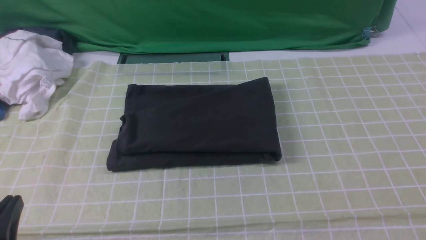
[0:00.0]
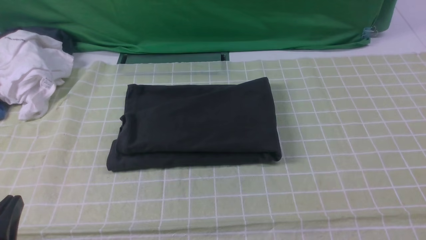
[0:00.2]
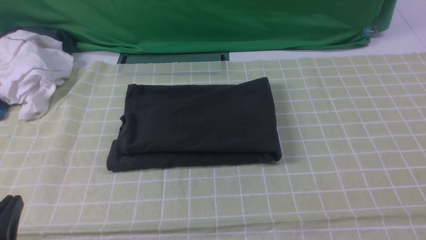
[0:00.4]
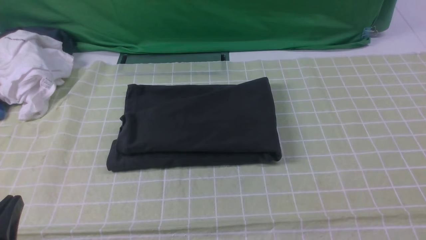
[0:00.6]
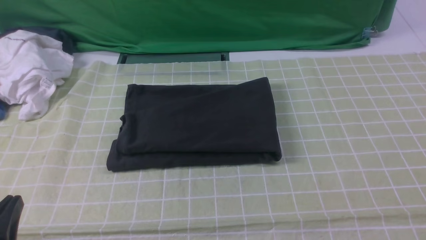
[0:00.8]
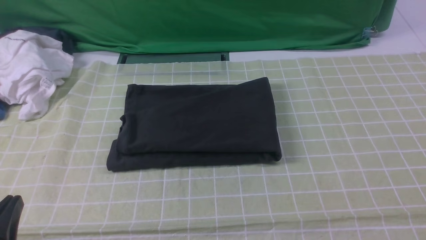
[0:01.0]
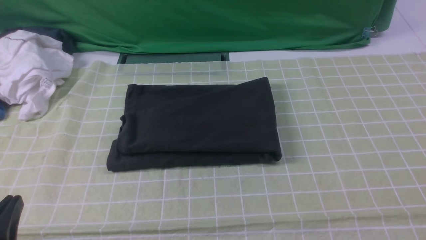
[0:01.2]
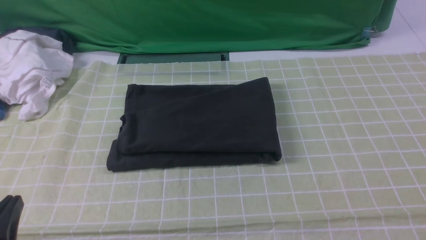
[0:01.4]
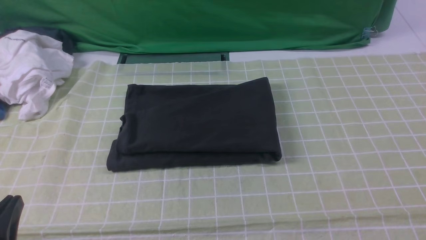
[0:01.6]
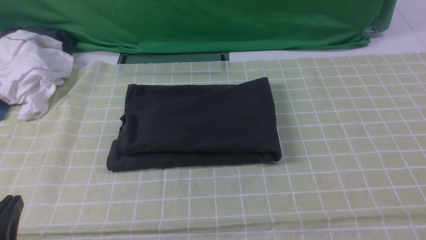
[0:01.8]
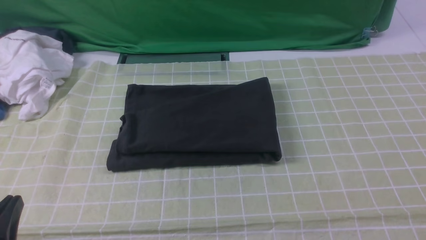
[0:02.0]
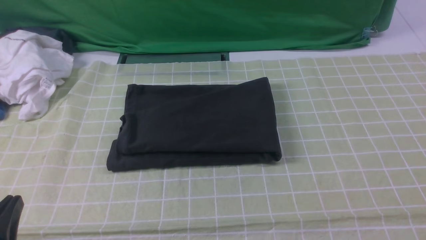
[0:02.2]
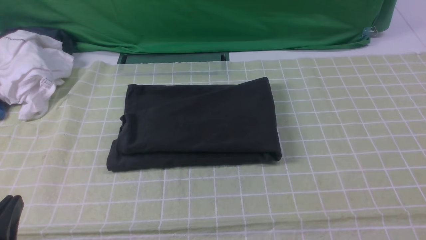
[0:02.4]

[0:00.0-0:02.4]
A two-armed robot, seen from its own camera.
0:00.0 to 0:02.4: The two grippers keep their place.

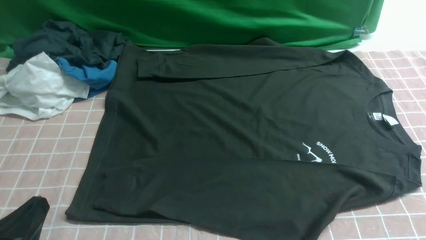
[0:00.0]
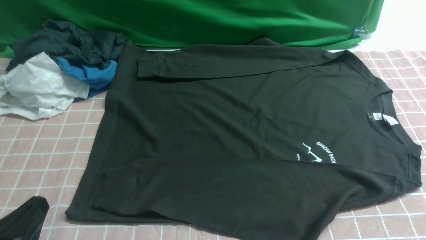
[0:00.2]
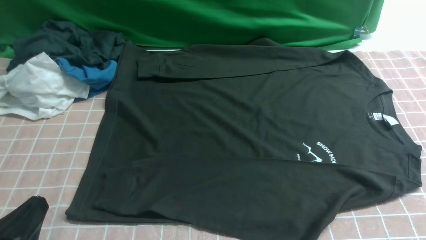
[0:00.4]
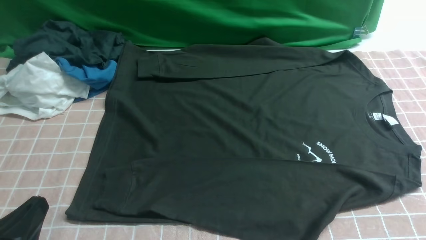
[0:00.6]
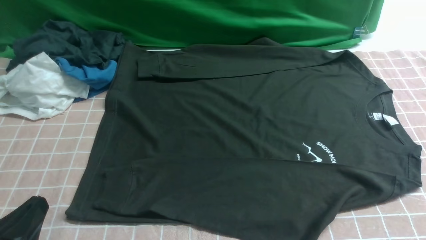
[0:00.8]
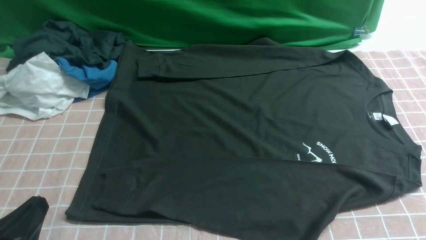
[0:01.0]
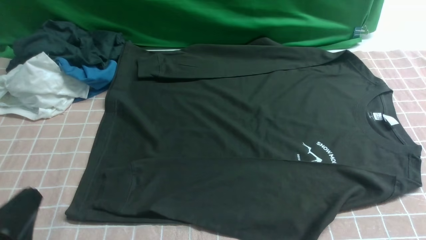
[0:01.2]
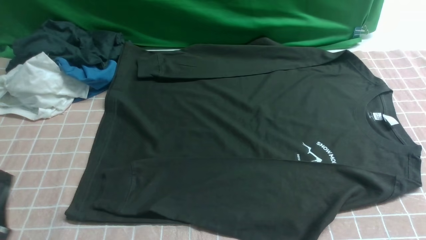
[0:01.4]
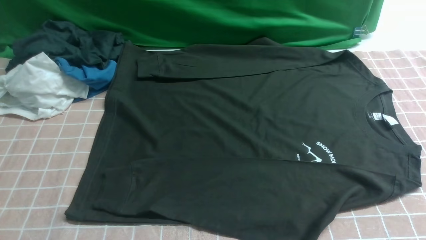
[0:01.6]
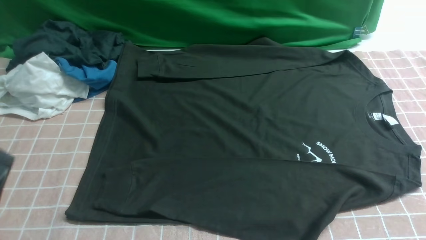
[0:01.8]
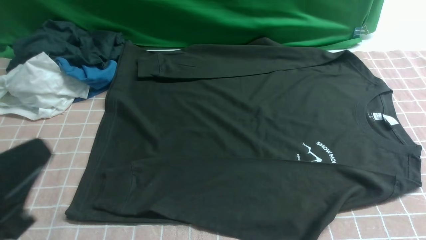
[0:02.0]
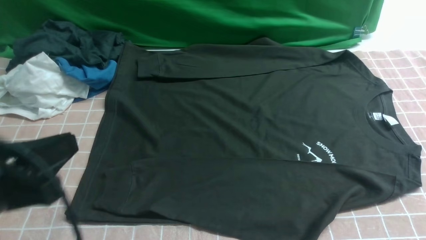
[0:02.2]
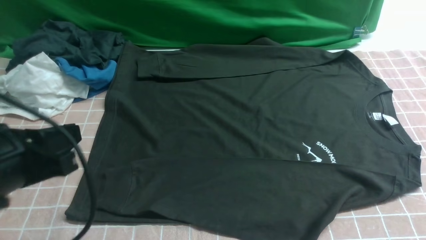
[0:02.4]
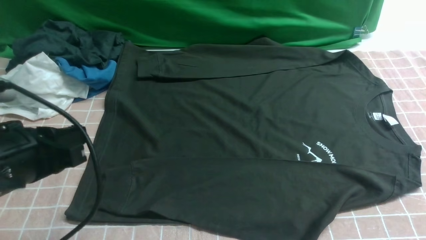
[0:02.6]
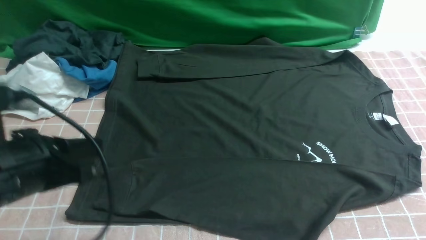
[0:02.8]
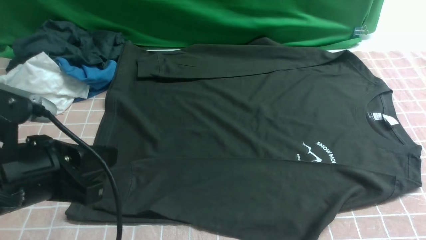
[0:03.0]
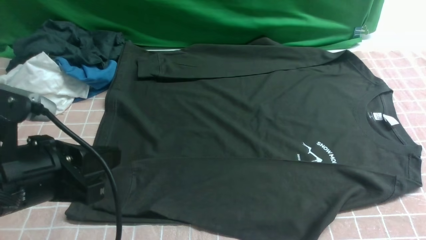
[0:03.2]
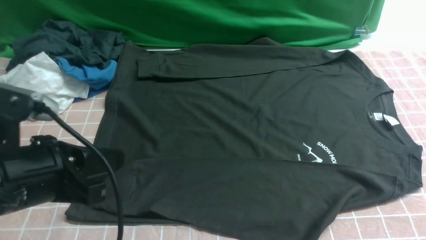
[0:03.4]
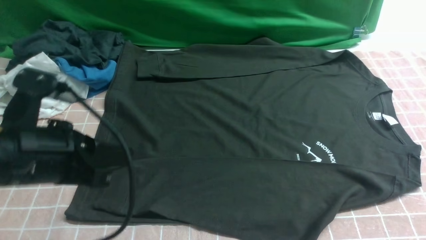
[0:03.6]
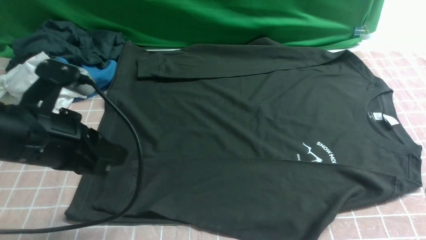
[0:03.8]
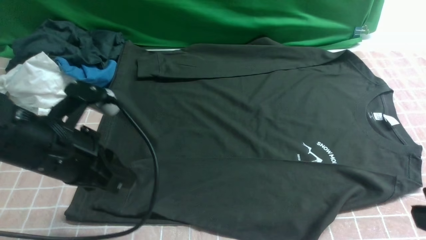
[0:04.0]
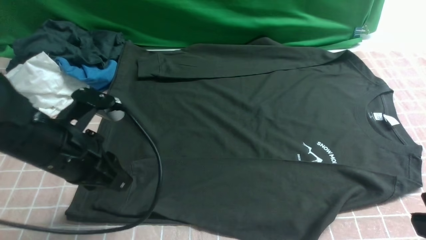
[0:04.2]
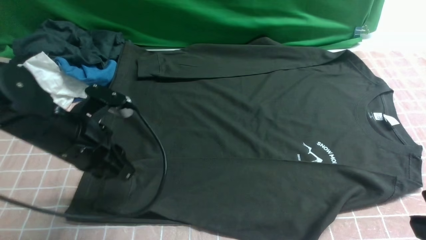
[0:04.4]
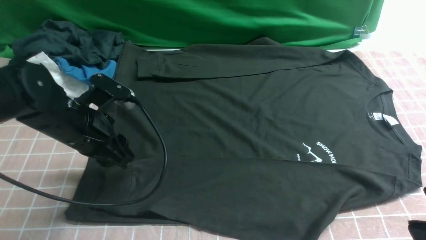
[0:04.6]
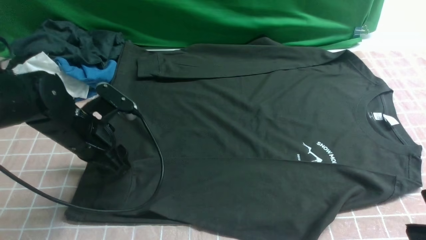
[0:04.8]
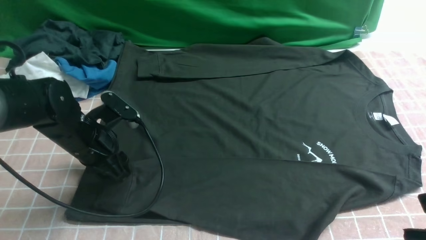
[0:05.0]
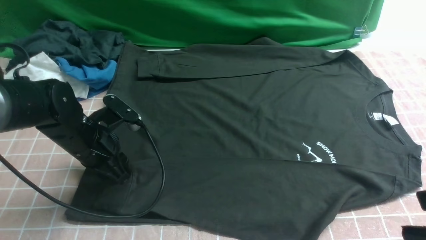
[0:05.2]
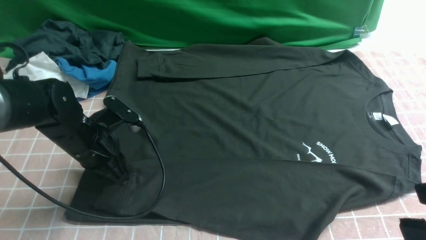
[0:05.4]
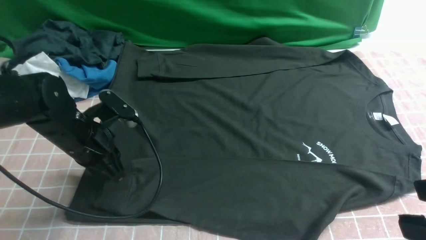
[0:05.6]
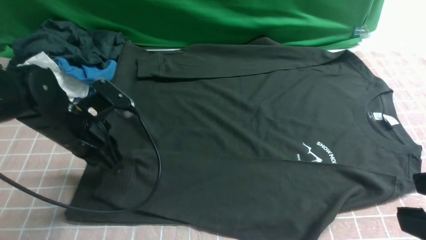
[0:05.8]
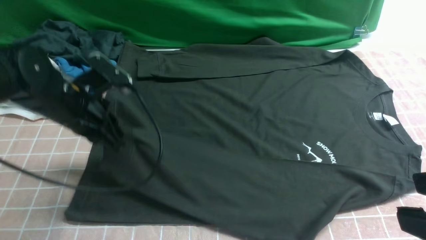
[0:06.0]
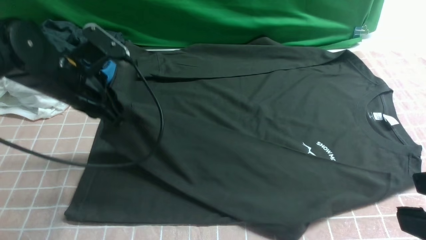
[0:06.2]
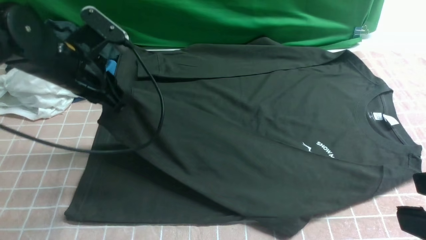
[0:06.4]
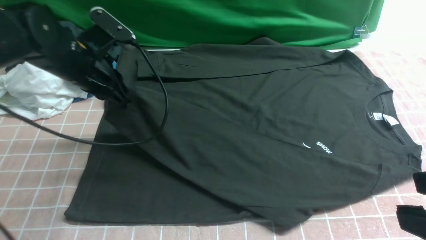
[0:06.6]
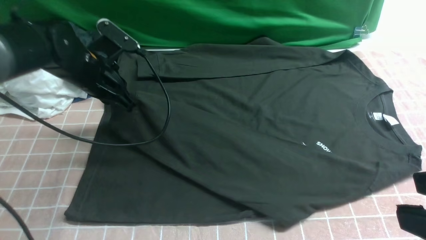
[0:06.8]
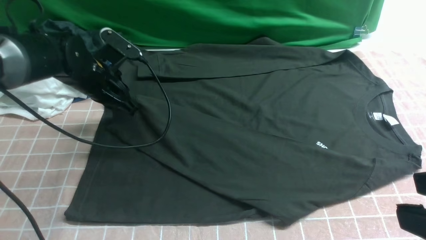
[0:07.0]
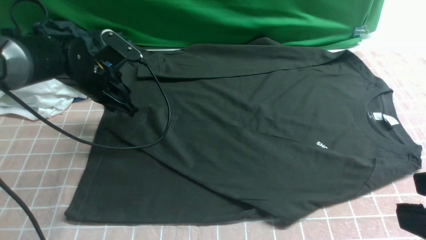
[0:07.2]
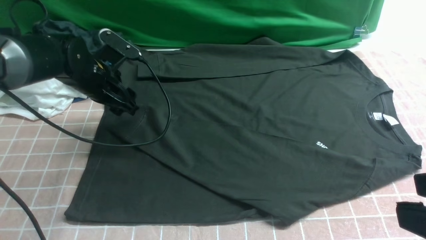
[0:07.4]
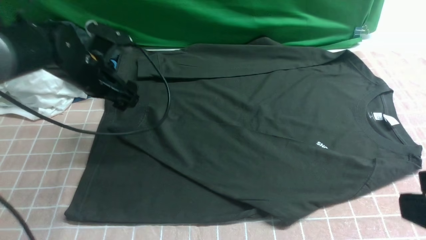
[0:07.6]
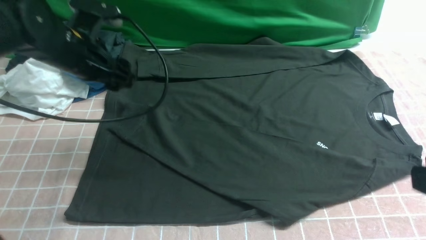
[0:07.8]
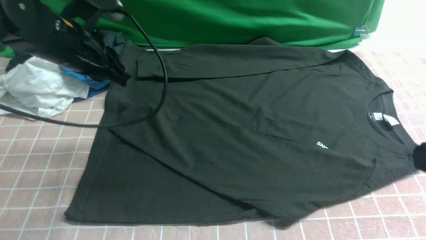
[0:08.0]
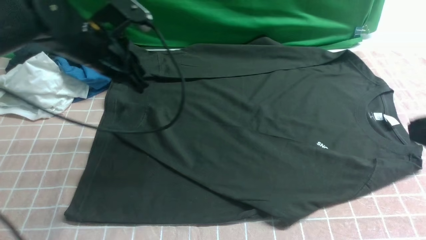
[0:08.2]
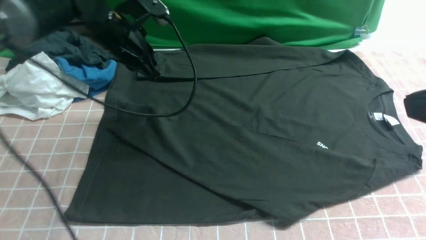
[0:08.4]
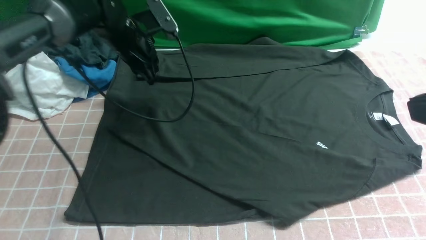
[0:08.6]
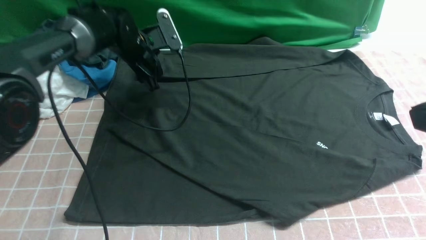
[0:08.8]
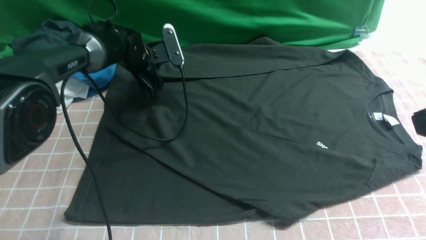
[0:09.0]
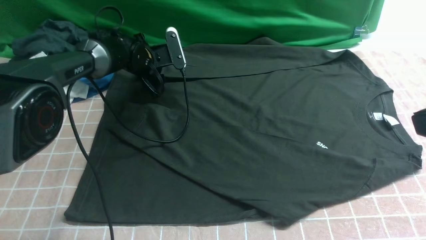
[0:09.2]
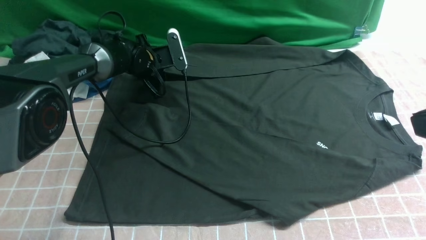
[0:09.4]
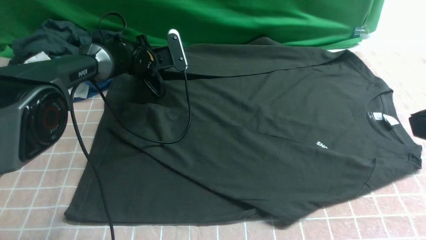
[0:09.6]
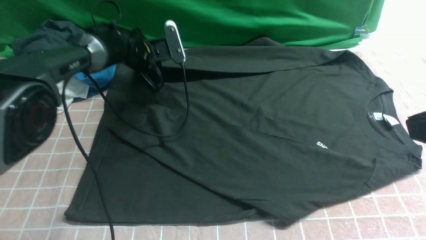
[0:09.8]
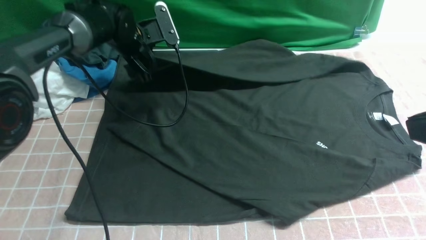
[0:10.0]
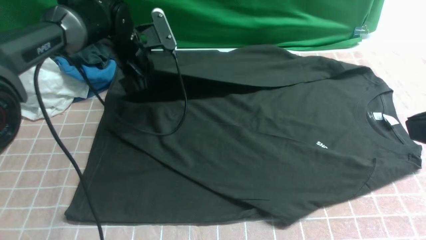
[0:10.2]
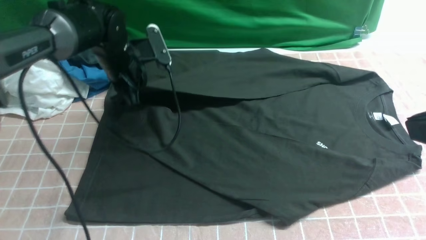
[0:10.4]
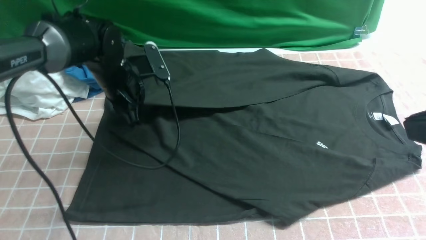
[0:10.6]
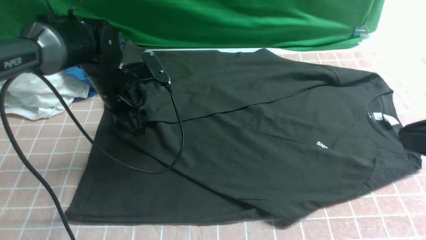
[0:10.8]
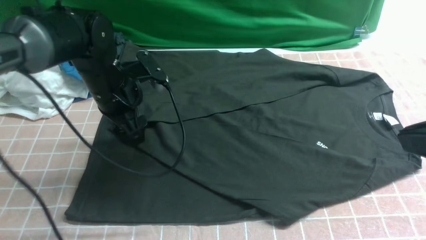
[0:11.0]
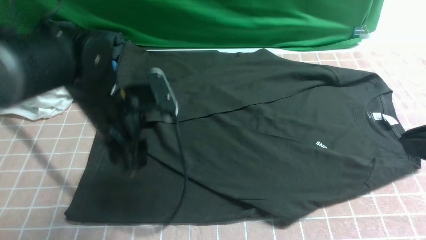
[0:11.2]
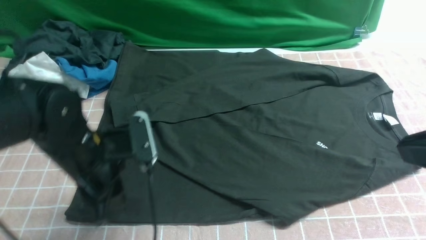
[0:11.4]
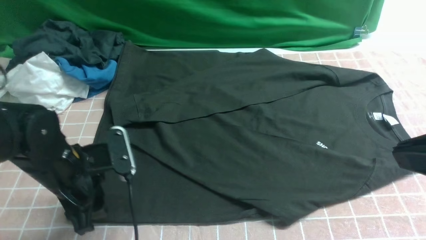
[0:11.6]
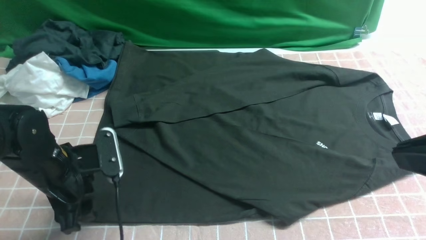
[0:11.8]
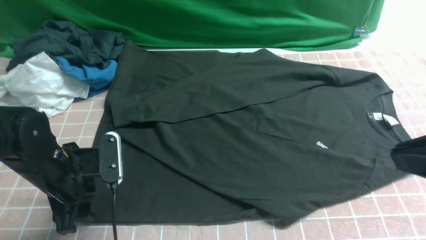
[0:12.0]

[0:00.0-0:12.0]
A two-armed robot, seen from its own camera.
Step, 0:00.0 to 0:05.8: use the left arm to clamp the cuff closest to it.
Step, 0:06.0 to 0:07.4: use the left arm to drag and place the cuff at the centered position on the left edge of the fabric.
Step, 0:07.8 to 0:09.6: use the left arm to clamp the cuff farthest from it.
Step, 0:10.0 to 0:11.0: use the left arm to drag and drop the cuff onto the cuff closest to the left arm.
0:00.0 to 0:01.6: The left gripper is displaced upward by some 5 cm.
0:01.6 to 0:03.0: The left gripper heads forward, covering some 10 cm.
0:03.0 to 0:04.4: The left gripper shifts roughly 15 cm forward and downward, while the right gripper is displaced upward and to the left by some 15 cm.
0:04.4 to 0:06.0: The left gripper changes place by roughly 5 cm, and opens and closes again.
0:06.0 to 0:07.6: The left gripper goes approximately 5 cm forward, and opens its fingers.
0:07.6 to 0:09.0: The left gripper travels forward and downward by about 15 cm, and closes, then reopens. The right gripper shifts by roughly 5 cm, and closes its fingers.
0:09.0 to 0:10.4: The left gripper travels backward by roughly 5 cm, and closes its fingers.
0:10.4 to 0:12.0: The left gripper goes some 20 cm backward, and opens.

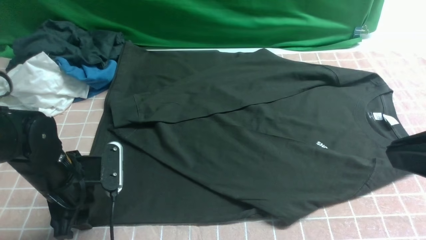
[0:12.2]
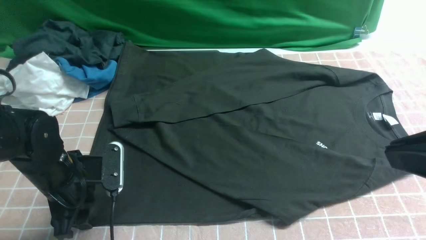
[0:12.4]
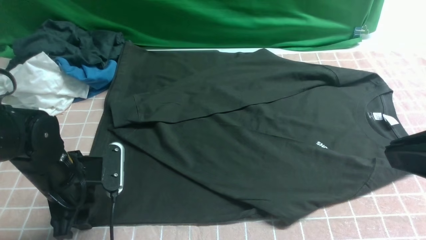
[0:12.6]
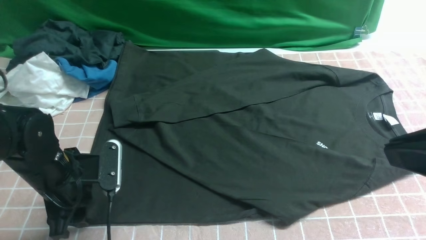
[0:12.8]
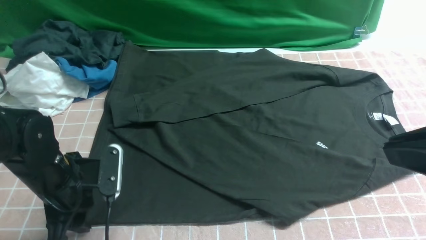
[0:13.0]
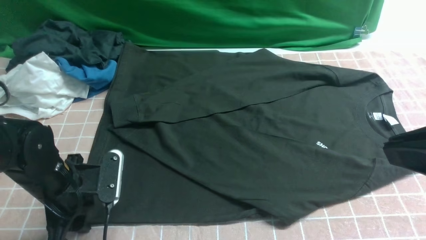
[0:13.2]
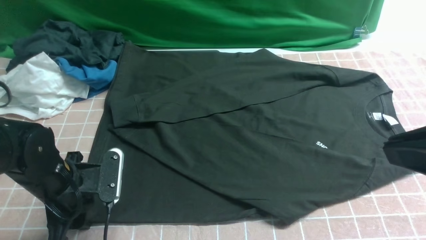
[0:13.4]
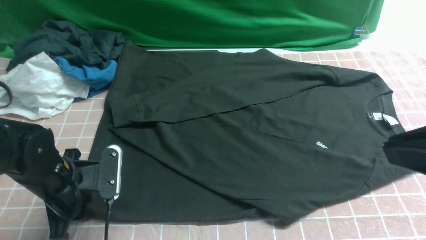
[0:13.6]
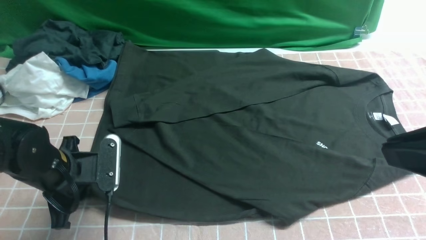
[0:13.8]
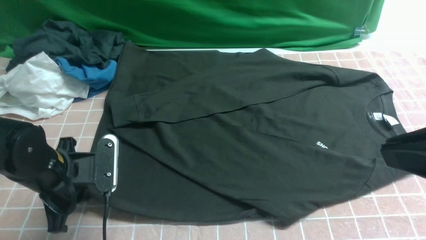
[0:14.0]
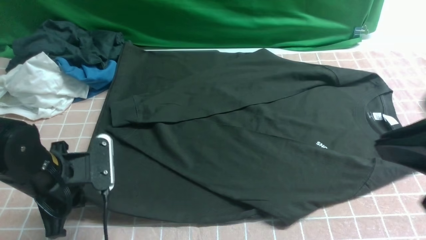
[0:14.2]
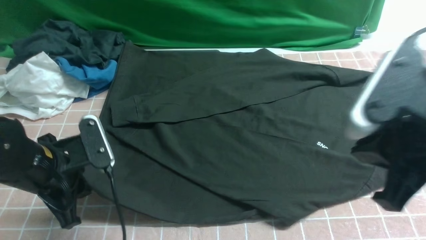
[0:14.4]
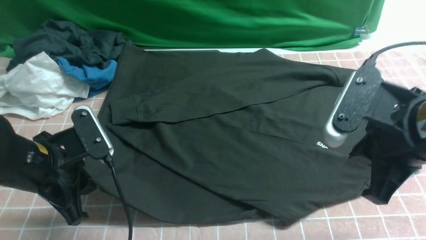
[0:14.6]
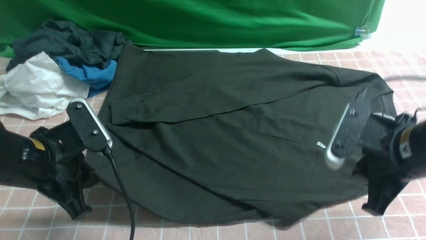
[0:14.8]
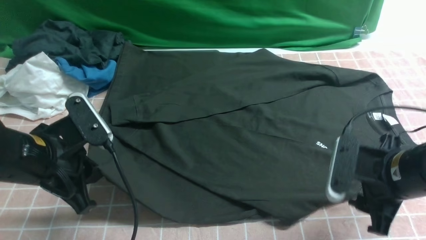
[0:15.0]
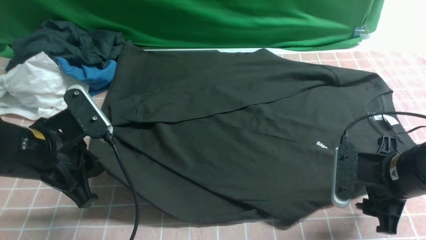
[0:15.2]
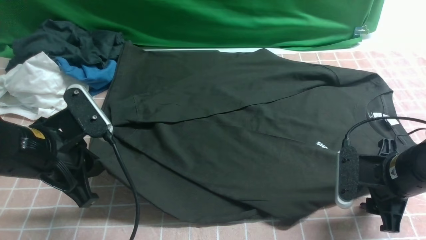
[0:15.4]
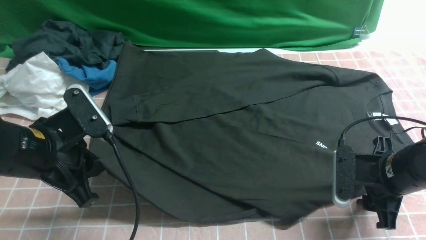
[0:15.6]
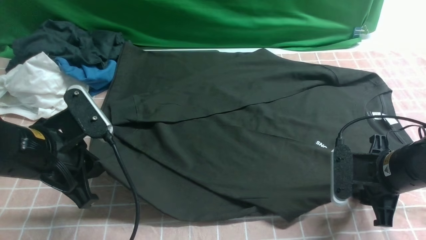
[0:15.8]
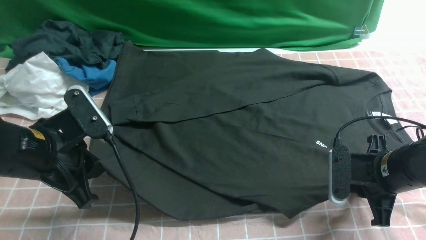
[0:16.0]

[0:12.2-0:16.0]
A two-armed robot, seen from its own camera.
0:12.2 to 0:13.4: The grippers make only small movements.
0:13.4 to 0:14.8: The left gripper goes about 5 cm upward, and closes its fingers. Meanwhile the right gripper travels downward and forward by about 20 cm.
0:14.8 to 0:16.0: The right gripper heads downward, covering roughly 10 cm, and opens and closes again.
